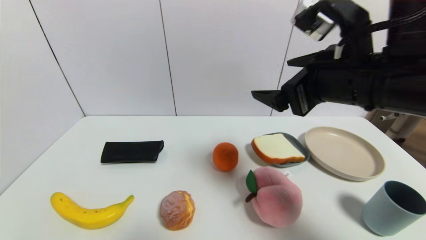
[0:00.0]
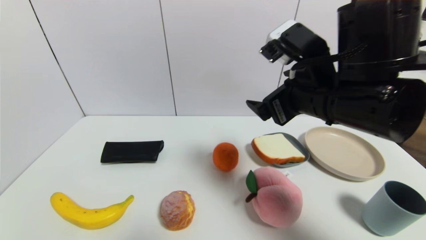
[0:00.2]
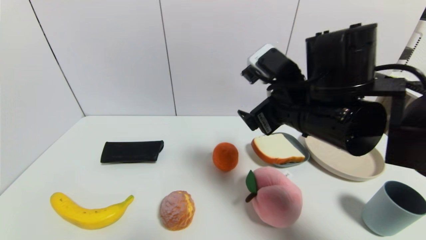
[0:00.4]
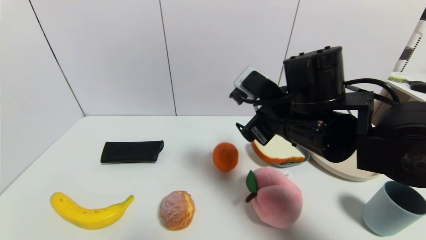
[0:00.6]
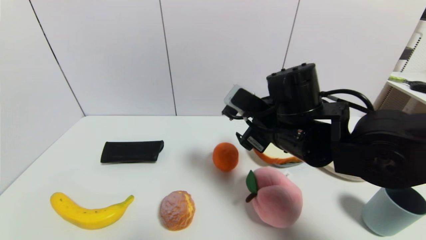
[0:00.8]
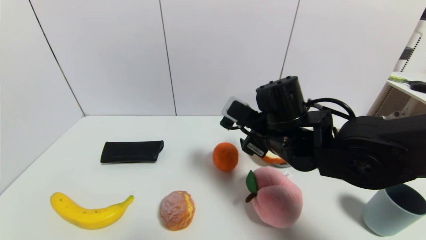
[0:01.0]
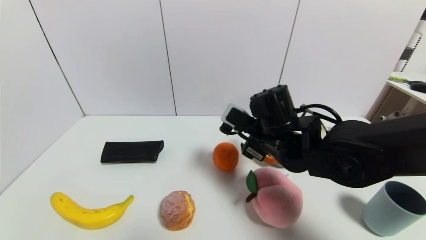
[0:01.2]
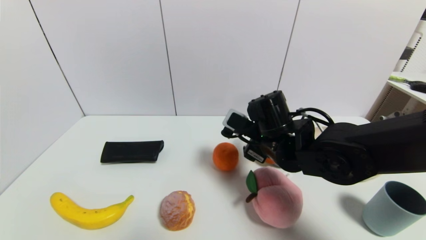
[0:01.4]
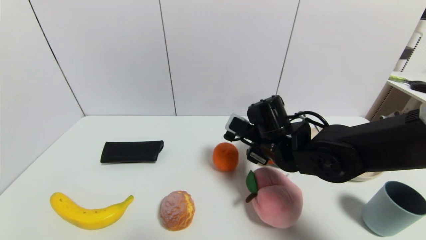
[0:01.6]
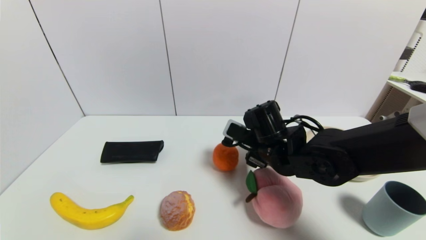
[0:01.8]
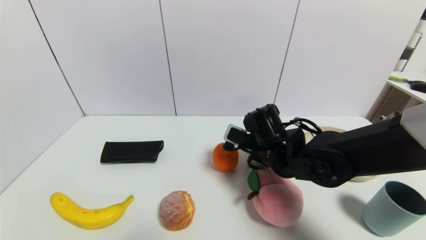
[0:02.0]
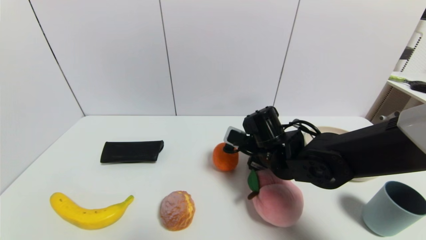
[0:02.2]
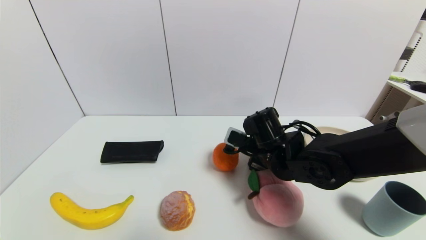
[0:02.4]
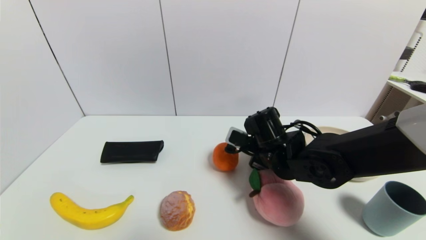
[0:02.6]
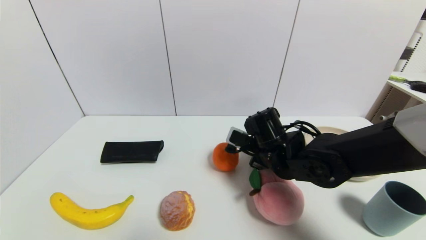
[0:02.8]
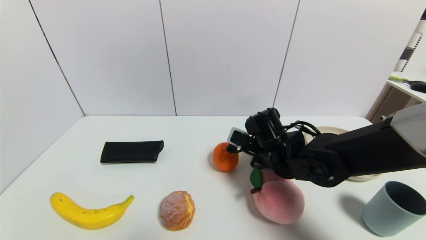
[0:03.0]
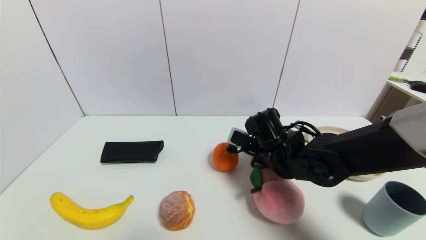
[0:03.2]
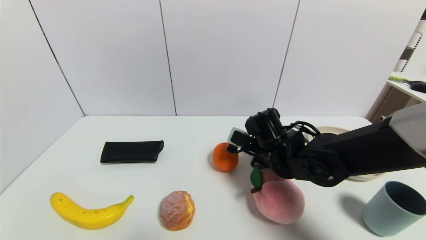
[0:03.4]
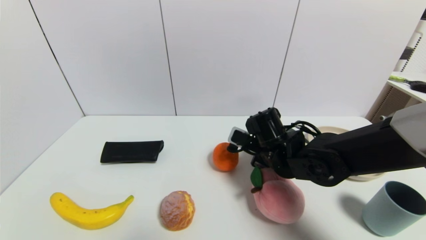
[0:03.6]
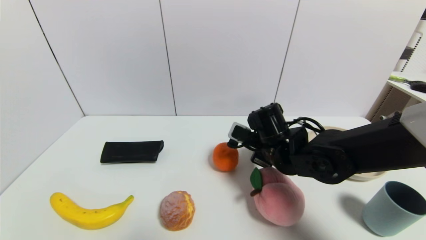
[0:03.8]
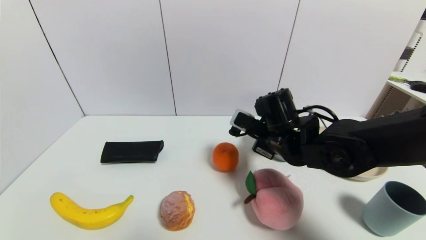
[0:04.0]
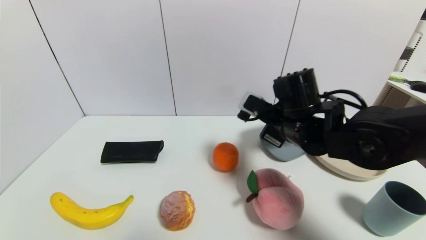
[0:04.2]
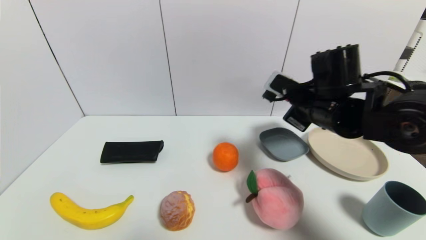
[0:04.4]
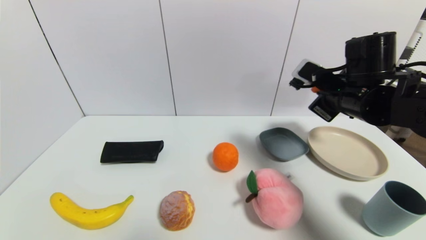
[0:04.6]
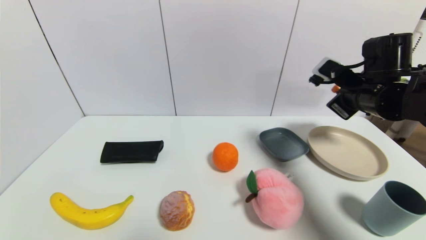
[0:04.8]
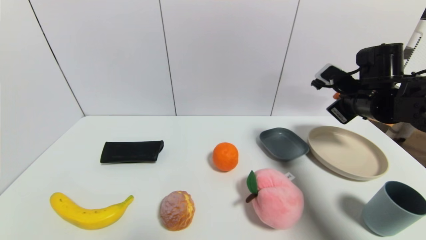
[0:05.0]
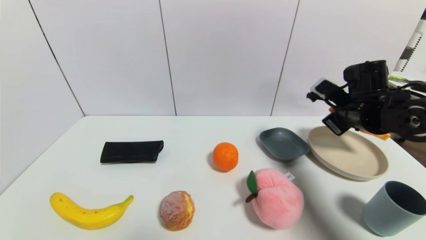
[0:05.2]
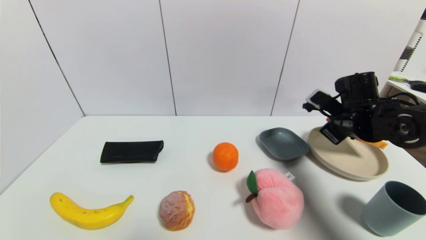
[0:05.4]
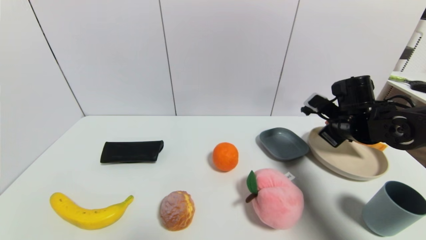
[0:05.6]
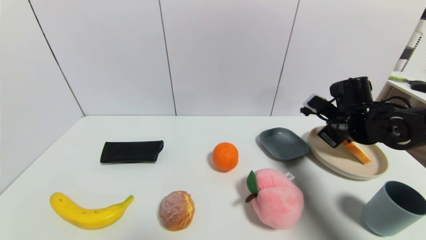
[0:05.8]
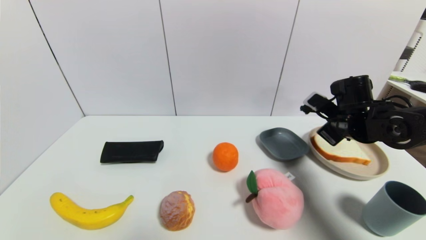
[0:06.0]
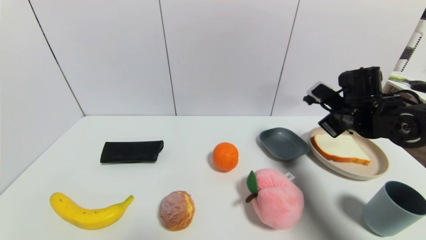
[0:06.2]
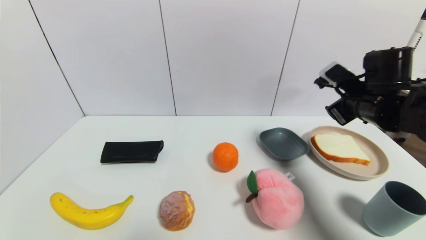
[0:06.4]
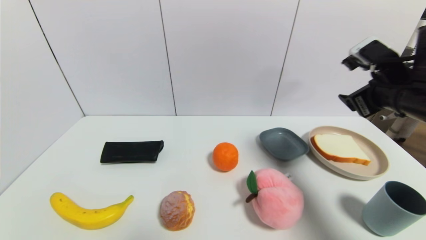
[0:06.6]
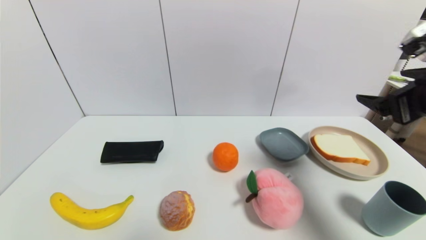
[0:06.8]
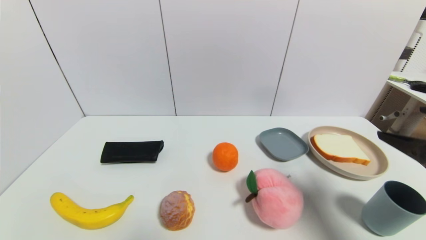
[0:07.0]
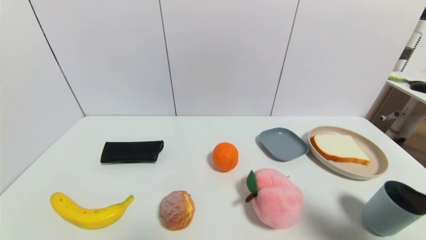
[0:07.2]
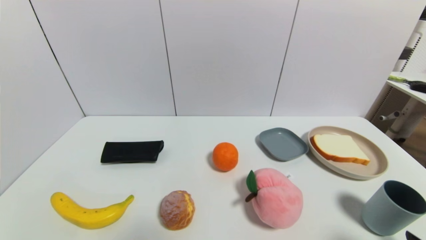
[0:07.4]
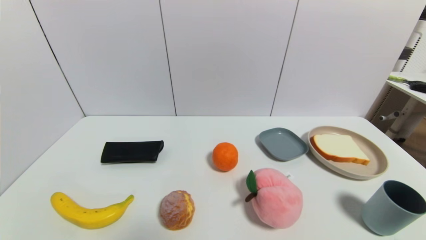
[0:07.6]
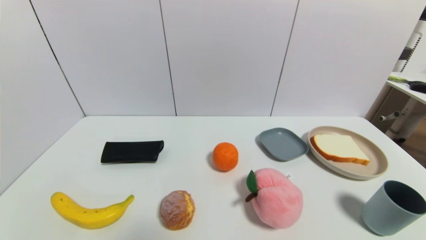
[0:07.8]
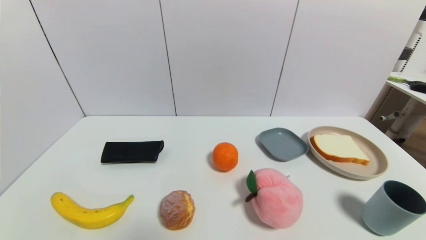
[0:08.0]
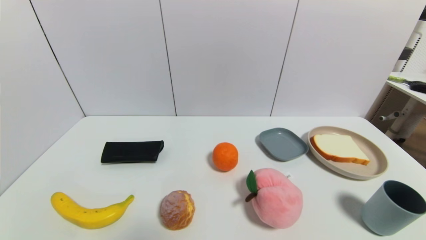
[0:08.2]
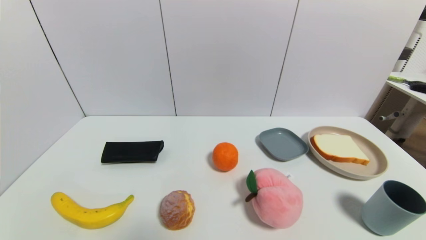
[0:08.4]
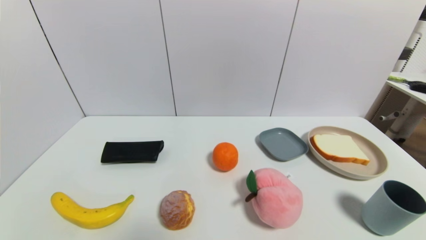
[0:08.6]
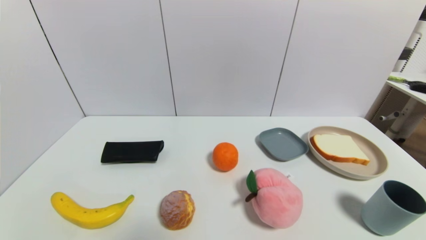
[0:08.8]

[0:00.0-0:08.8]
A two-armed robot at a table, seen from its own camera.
Task of the whole recording: use a gripper to pick the target object and place on the brown plate.
Step, 0:00.0 to 0:03.0: Grasp the bread slice with the right gripper.
Step, 0:03.2 to 0:06.0: Place the bread slice on the brown plate with the right gripper.
0:00.0 to 0:01.4: The right gripper moves downward and forward, some 15 cm.
0:01.4 to 0:03.0: The right gripper closes up.
0:03.0 to 0:04.4: The right gripper is displaced upward and to the right by about 15 cm, and closes its fingers.
0:04.4 to 0:05.8: The right gripper shifts approximately 10 cm to the right and downward.
0:05.8 to 0:07.4: The right gripper is displaced backward by roughly 30 cm, and opens its fingers.
